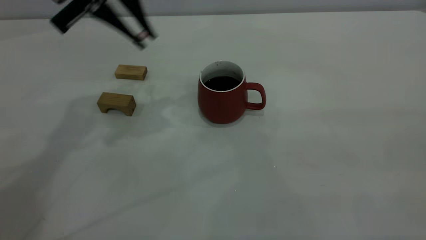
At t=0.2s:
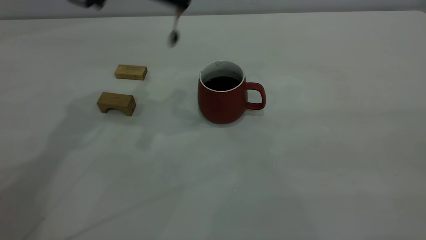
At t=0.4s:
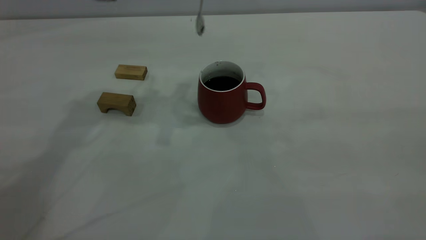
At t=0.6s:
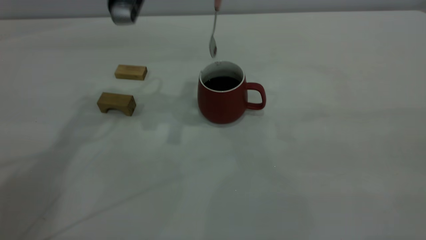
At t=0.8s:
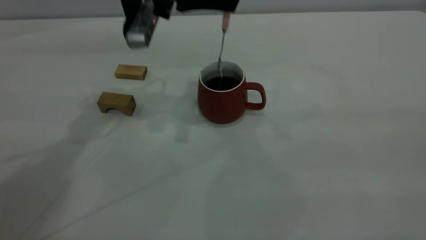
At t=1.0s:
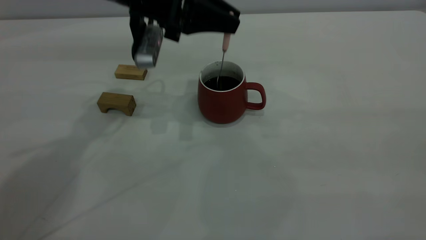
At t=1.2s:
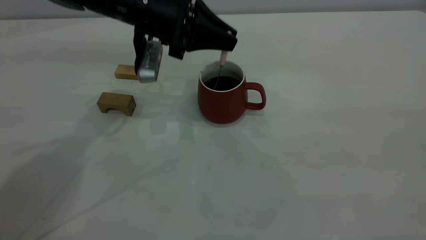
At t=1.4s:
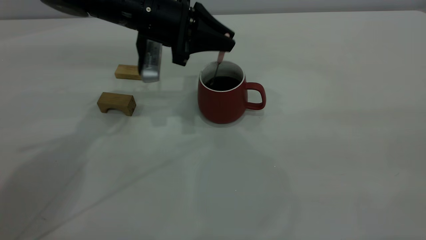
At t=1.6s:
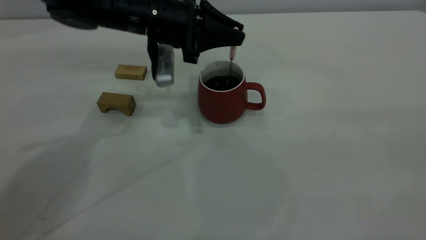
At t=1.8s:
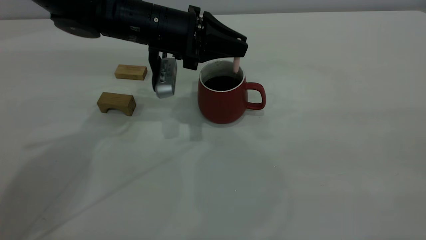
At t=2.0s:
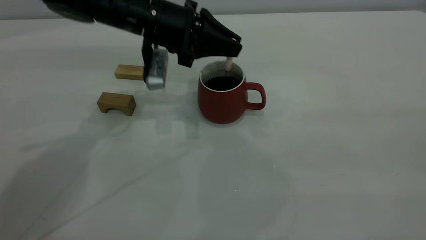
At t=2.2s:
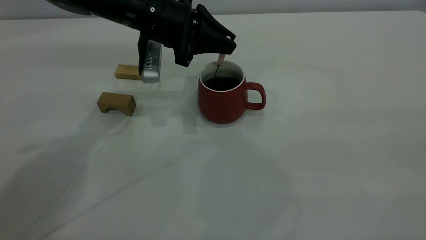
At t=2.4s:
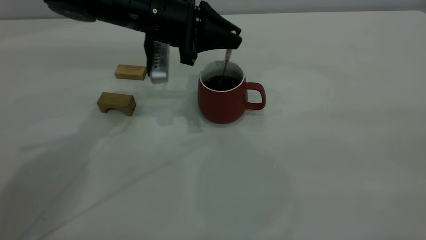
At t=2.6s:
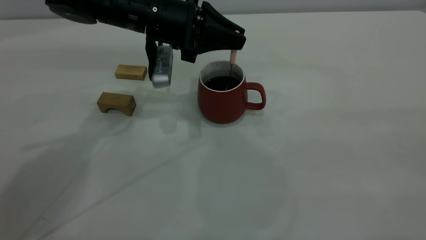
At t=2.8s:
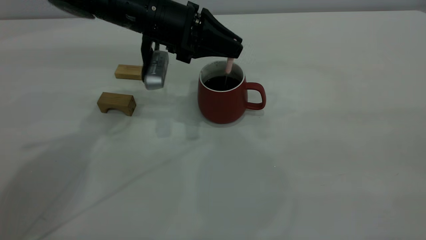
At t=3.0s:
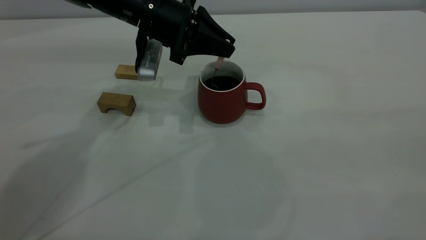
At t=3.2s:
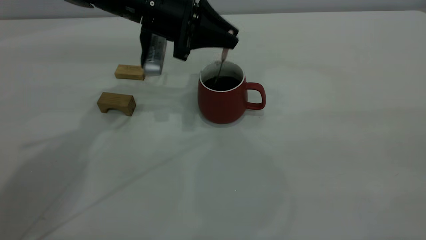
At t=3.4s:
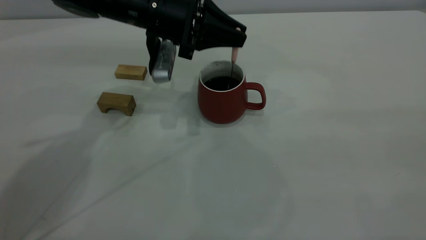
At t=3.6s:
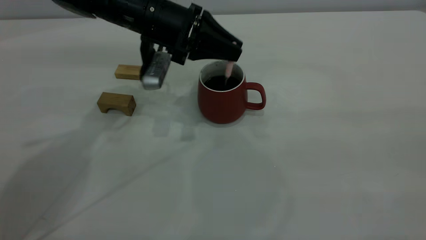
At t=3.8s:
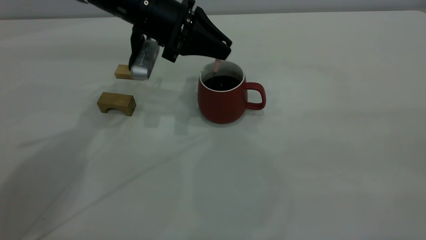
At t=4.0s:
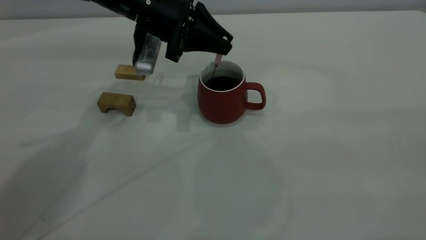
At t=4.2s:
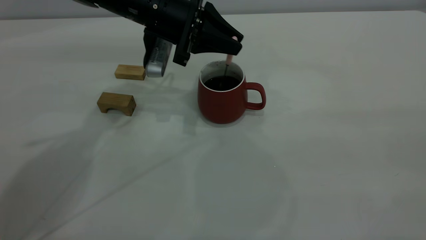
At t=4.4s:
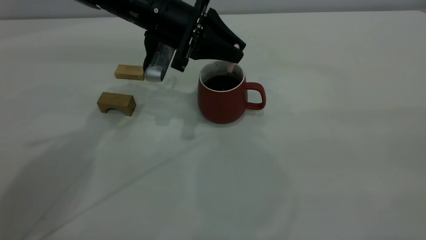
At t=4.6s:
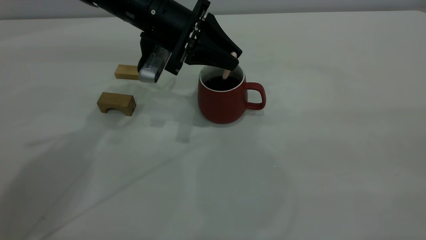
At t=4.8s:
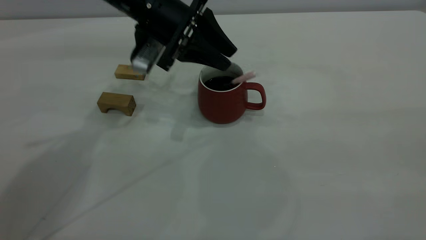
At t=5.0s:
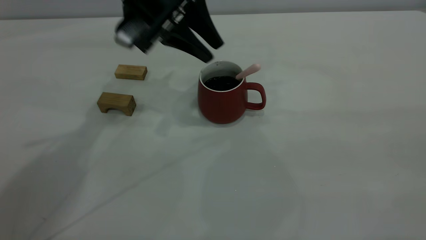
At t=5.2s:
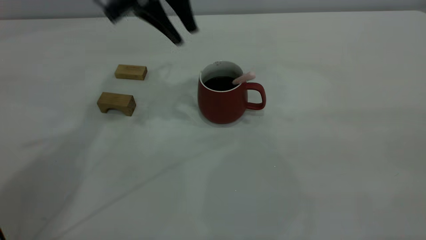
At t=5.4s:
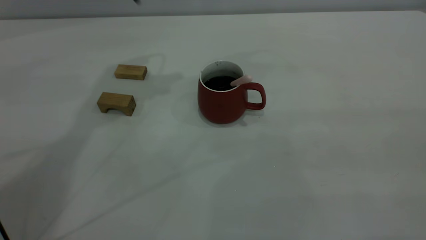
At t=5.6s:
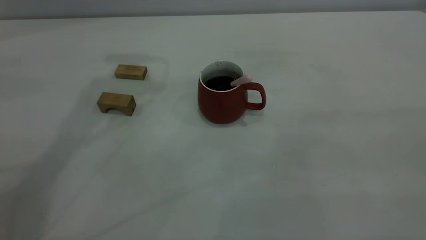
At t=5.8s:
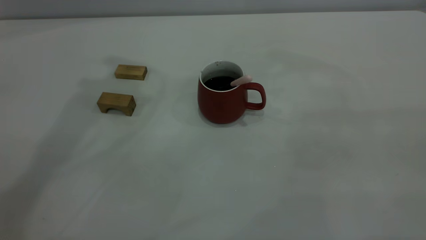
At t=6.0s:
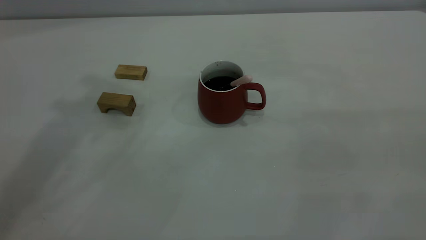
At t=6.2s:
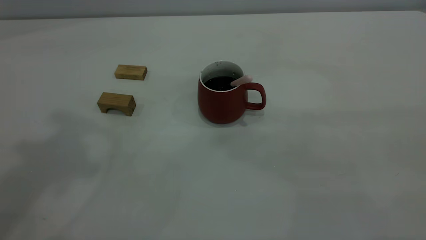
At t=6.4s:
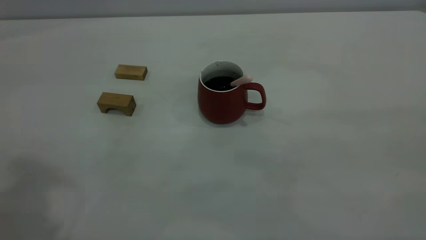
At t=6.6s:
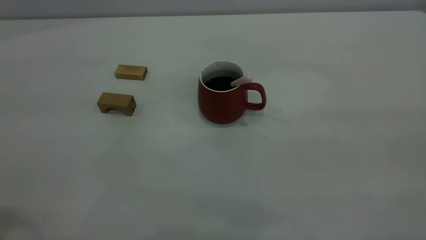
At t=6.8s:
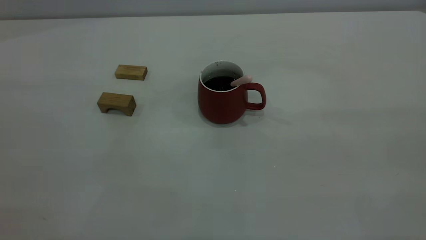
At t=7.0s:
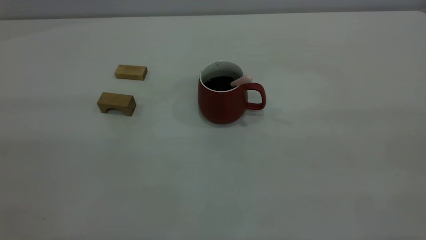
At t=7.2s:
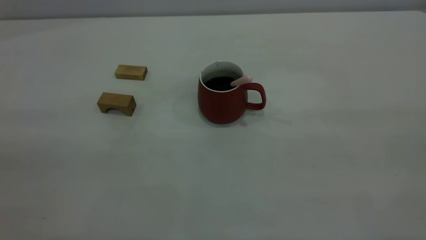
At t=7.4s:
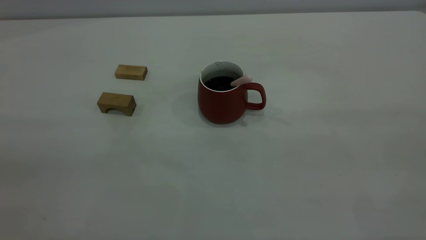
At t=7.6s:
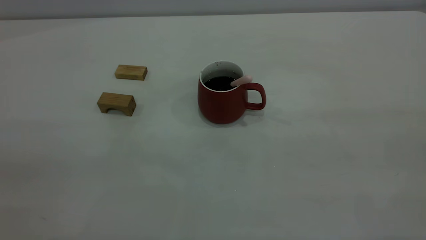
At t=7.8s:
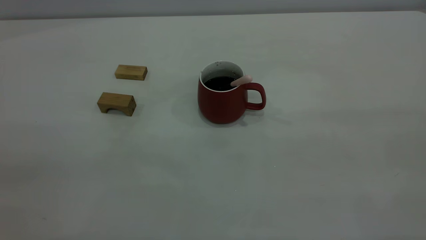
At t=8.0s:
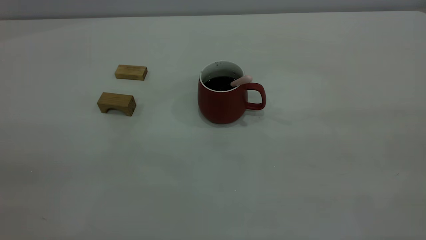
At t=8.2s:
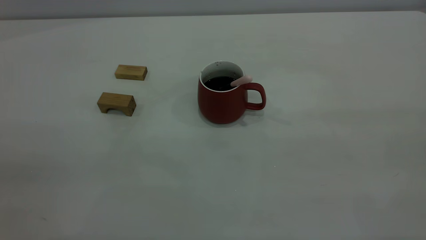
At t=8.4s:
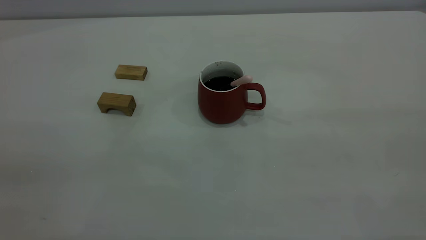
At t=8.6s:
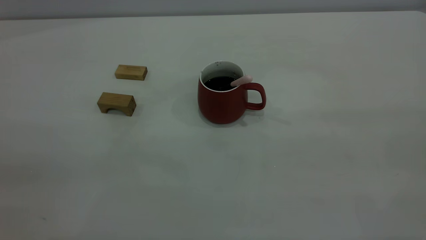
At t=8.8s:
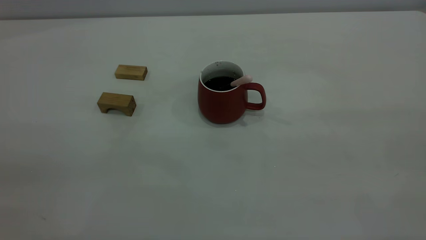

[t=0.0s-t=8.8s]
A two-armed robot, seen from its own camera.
Step, t=0.0s to t=5.0s: Stir the coffee in the cup.
t=0.0s to t=1.4s: The left gripper heads downward, covering some 10 cm.
t=1.4s to t=4.4s: The grippers move only a little.
t=4.4s to t=5.8s: The left gripper moves upward, some 30 cm.
